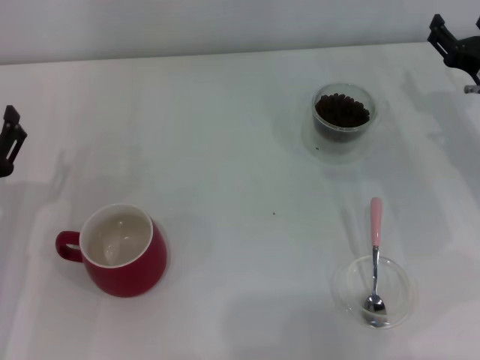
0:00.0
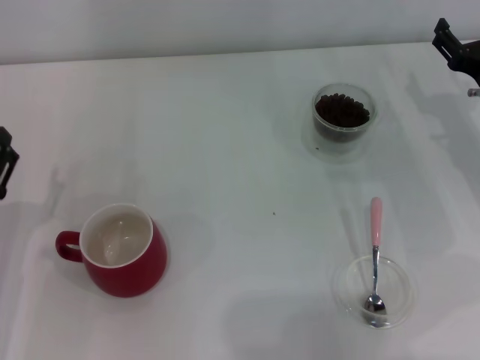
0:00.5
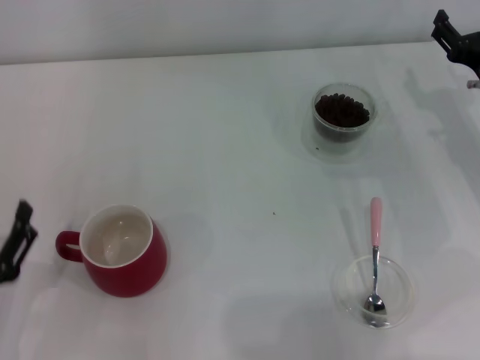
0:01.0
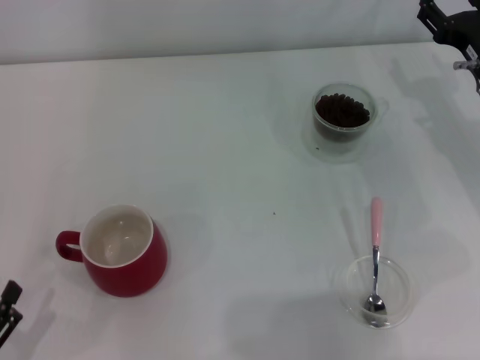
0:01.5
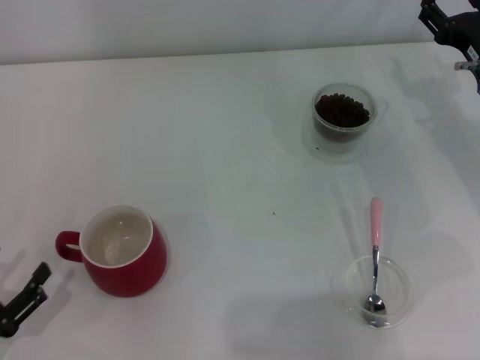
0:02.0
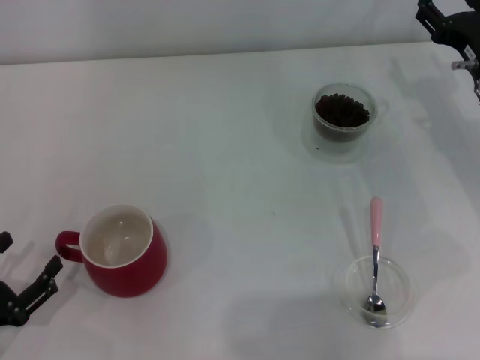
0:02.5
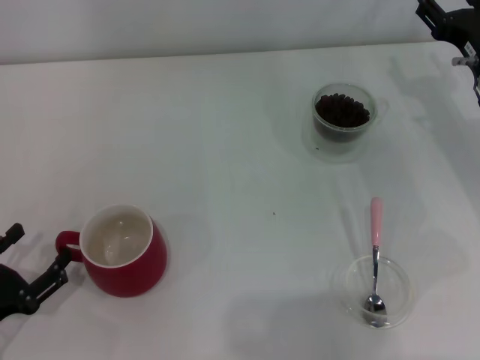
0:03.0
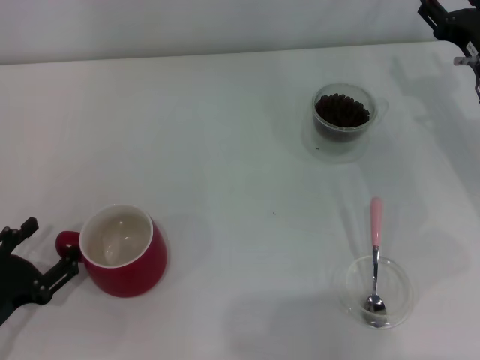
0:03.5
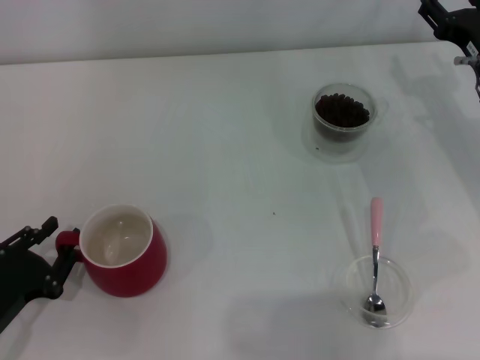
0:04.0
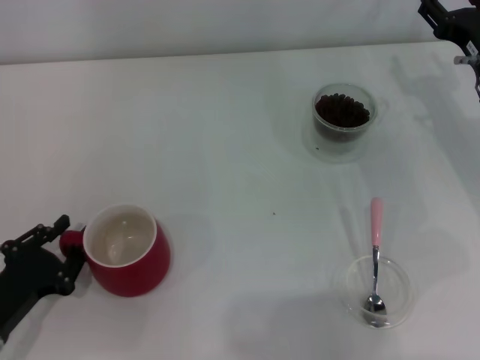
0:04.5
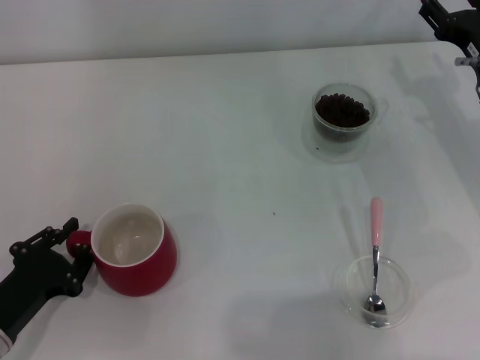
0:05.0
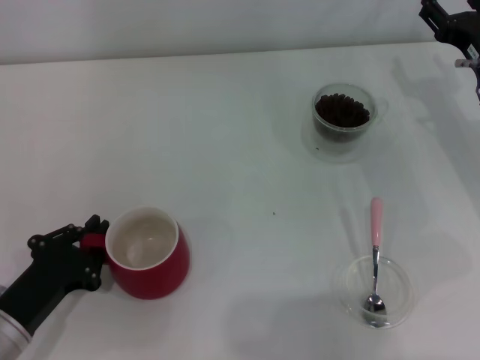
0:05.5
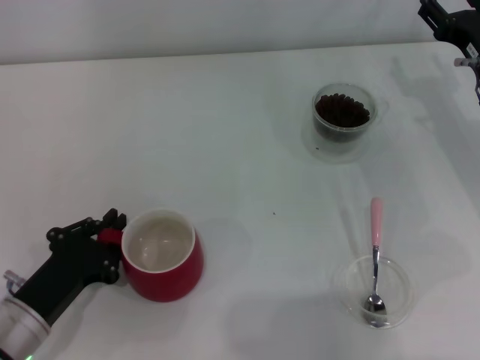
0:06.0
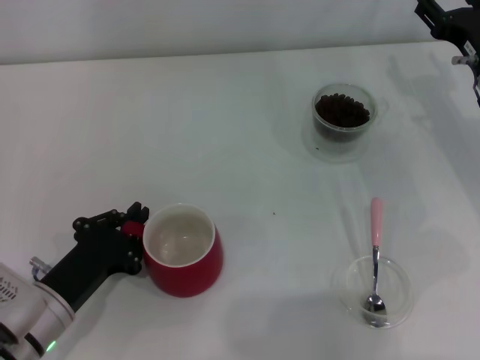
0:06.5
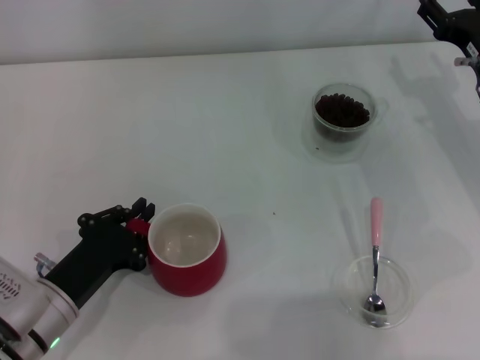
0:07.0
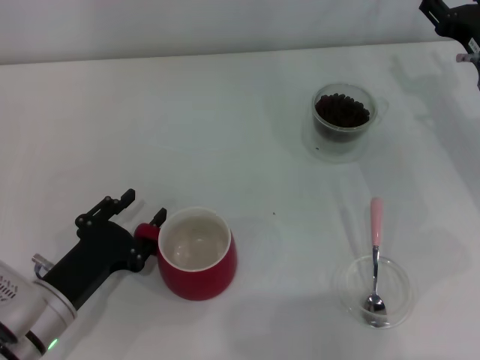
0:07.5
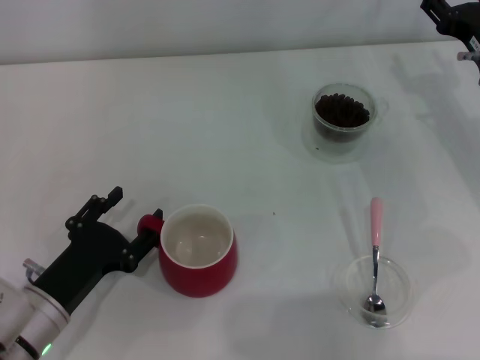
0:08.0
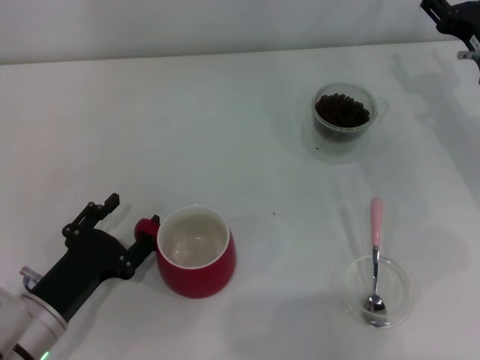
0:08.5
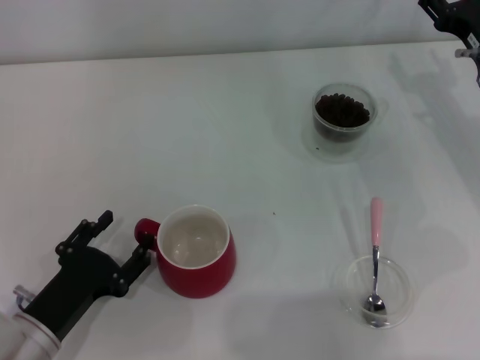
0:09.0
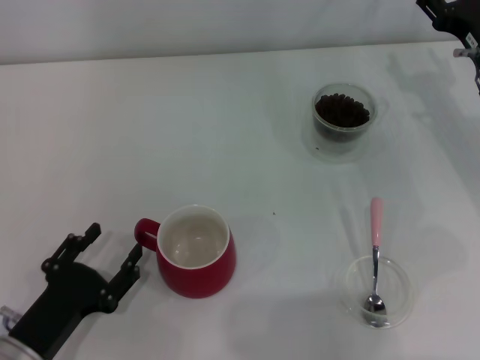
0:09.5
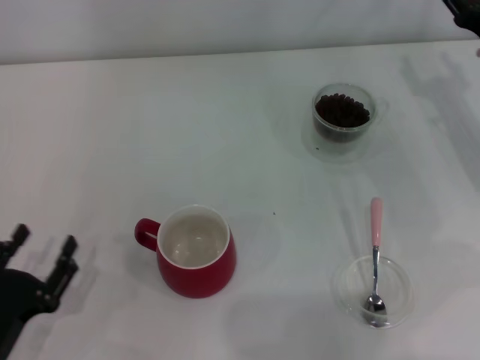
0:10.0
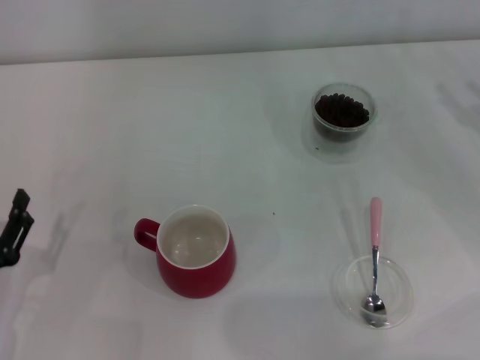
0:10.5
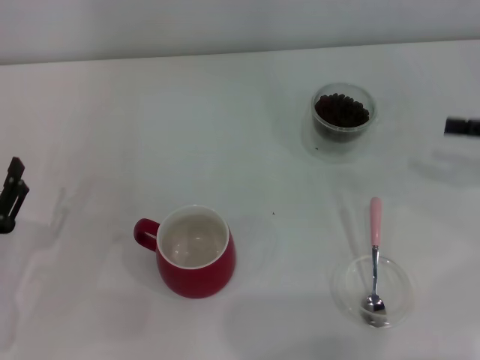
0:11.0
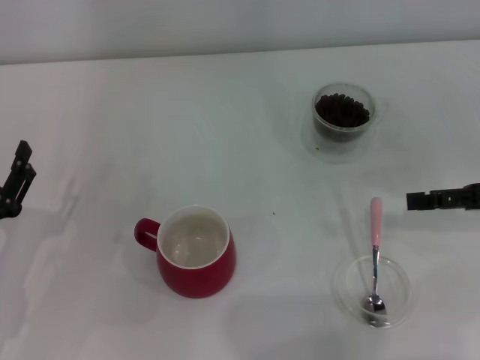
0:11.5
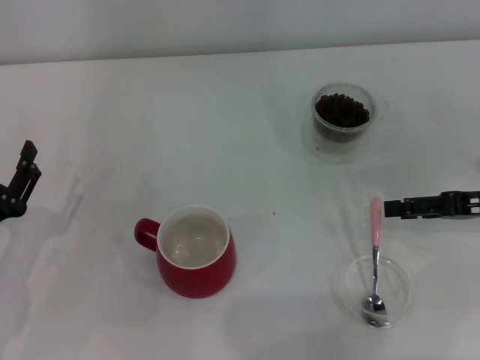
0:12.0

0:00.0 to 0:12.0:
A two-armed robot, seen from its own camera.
Task of the whole recording: Use a pink spoon to take out the coffee beans from the glass and pour them into the red cup.
Step, 0:00.0 to 0:09.5: Move the cup to the center of view with the left gripper.
0:00.0 to 0:02.0: The left gripper travels backward and to the left by approximately 15 cm.
0:02.0 to 0:04.0: The left gripper is displaced forward by approximately 5 cm, and closes up.
0:04.0 to 0:06.0: The left gripper travels to the right by about 5 cm, and closes up.
0:06.0 to 0:08.0: The left gripper opens its fingers.
0:08.0 to 0:10.0: The left gripper is displaced backward by some 5 cm.
0:10.0 to 0:12.0: The right gripper goes about 10 cm backward. Meanwhile the left gripper heads forward, covering roughly 10 cm.

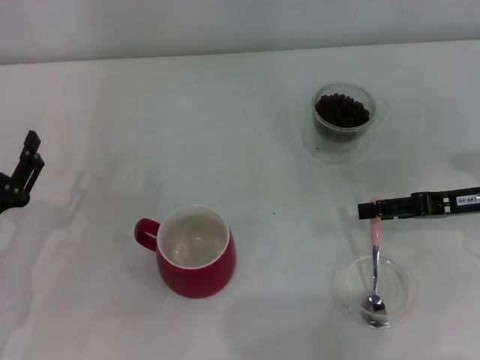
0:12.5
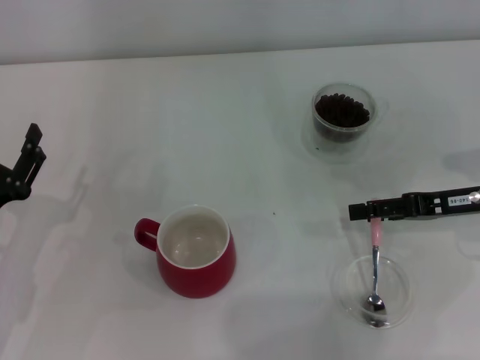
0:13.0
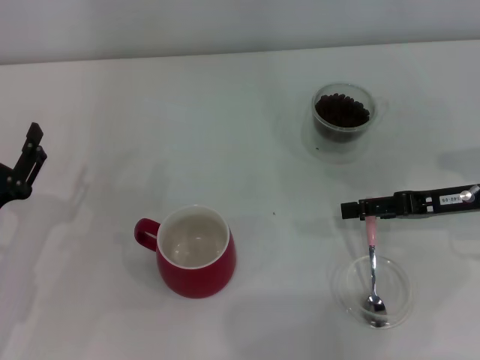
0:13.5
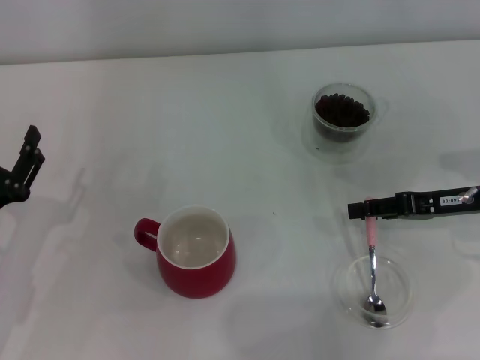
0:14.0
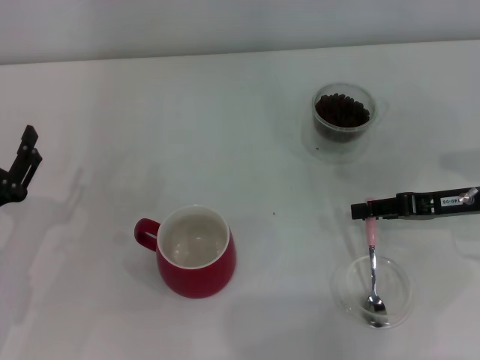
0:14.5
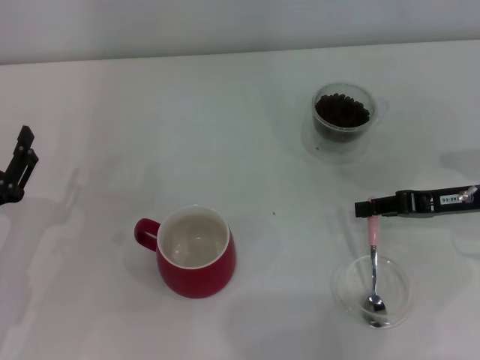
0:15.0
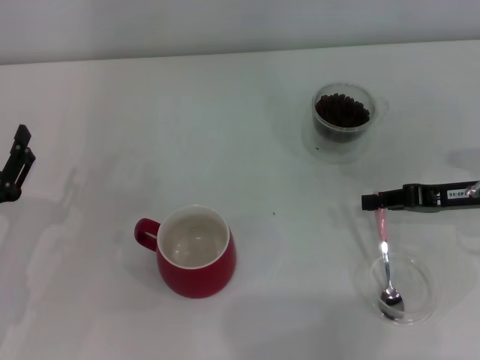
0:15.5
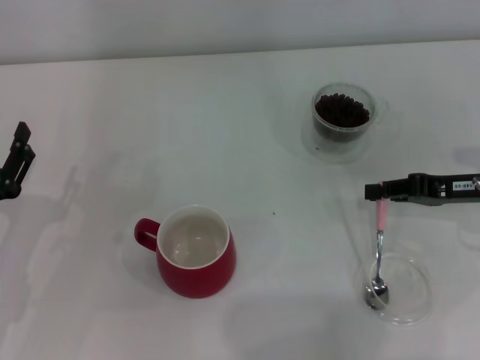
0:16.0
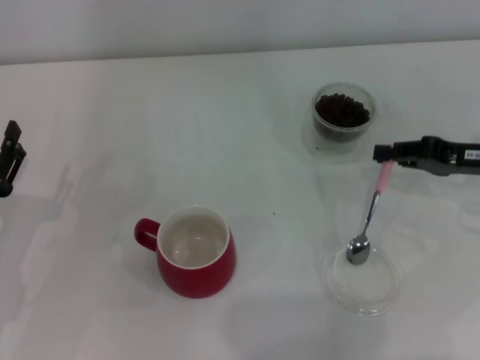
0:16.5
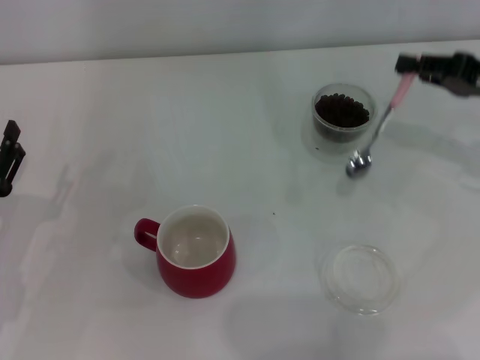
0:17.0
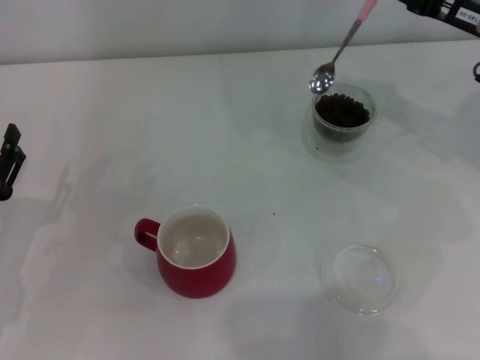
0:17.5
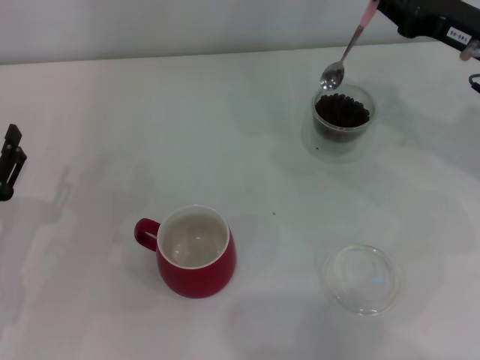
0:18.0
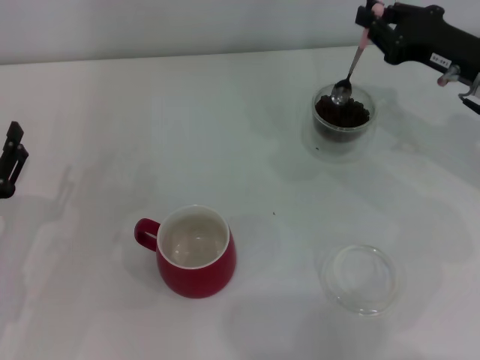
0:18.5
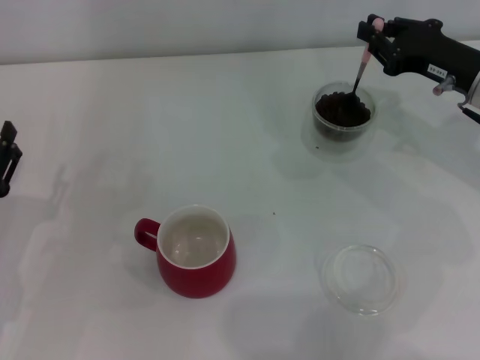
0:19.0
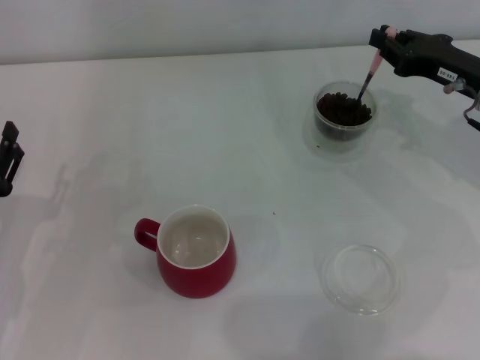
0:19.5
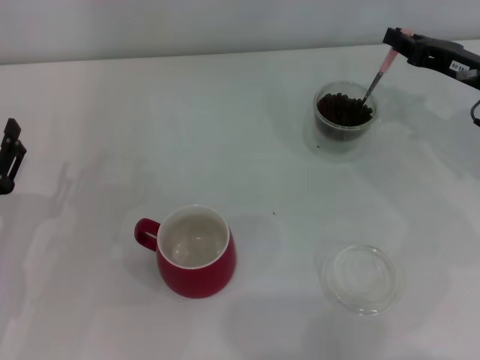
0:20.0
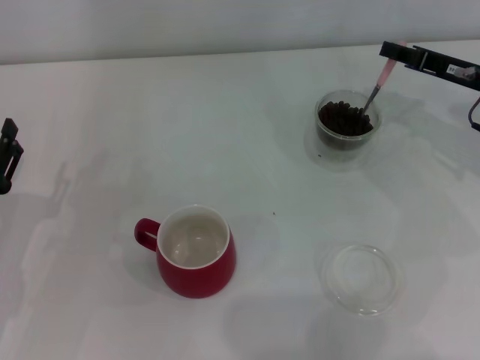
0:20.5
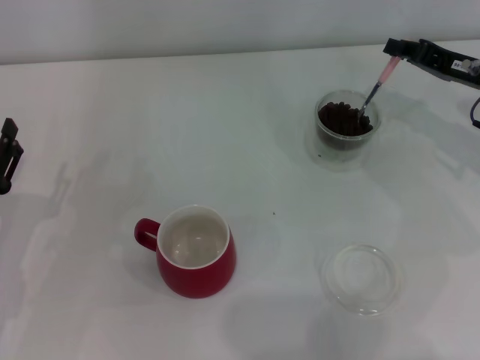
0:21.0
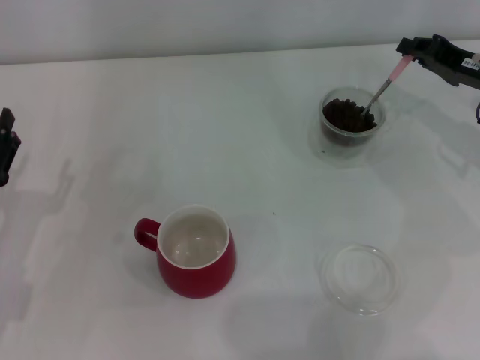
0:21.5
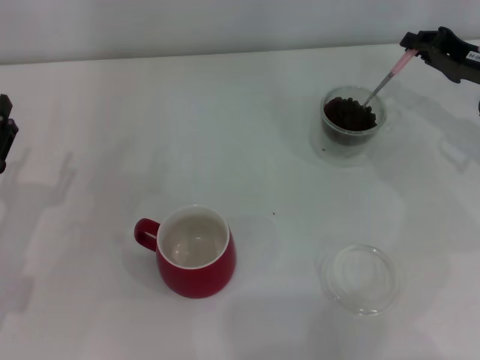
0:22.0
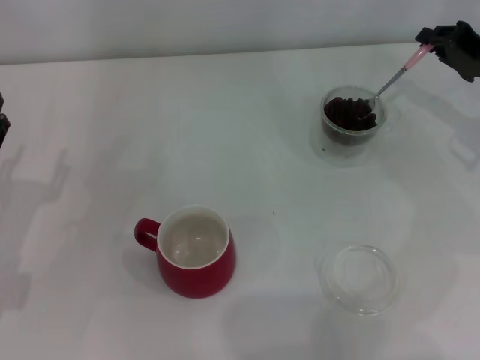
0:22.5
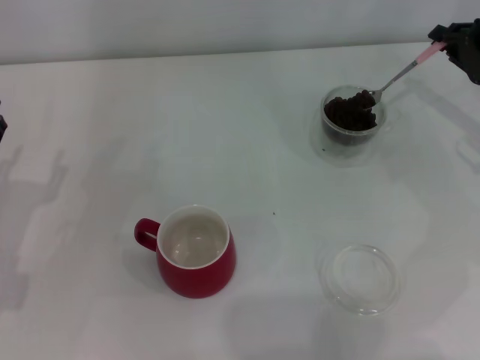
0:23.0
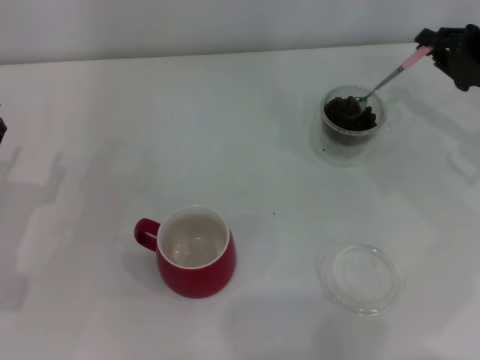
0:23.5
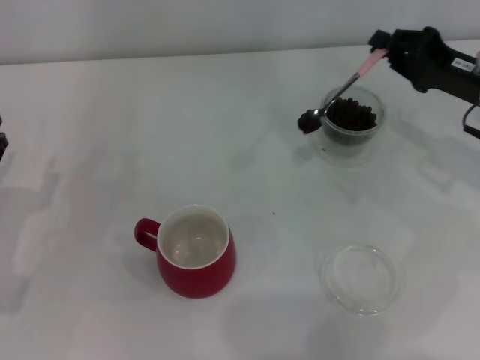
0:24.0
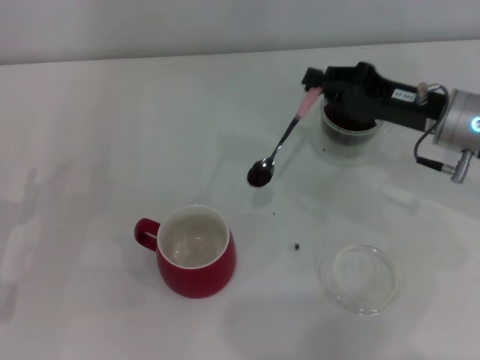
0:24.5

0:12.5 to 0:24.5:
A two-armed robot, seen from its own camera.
Task of the whole recording: Use a pink spoon to take out the coffee beans from the glass and pour them into the red cup.
Step, 0:12.5 to 0:16.5: Pick up the spoon with the right gripper.
0:12.5 to 0:14.5: The right gripper closes up.
0:14.5 to 0:16.5: The right gripper closes its fingers.
0:16.5 to 0:18.5: The right gripper is displaced forward by approximately 5 cm.
0:22.5 to 0:24.5: The right gripper goes approximately 10 cm to the left.

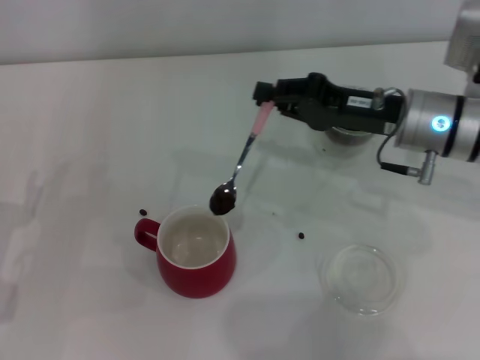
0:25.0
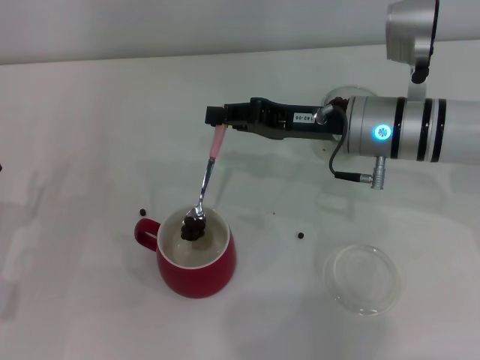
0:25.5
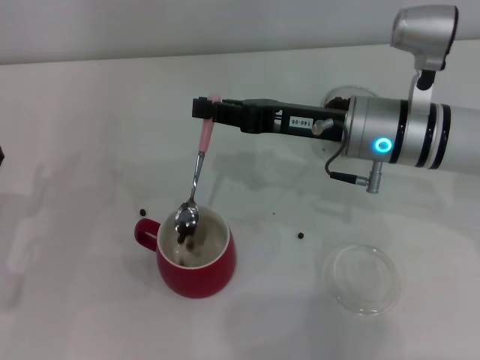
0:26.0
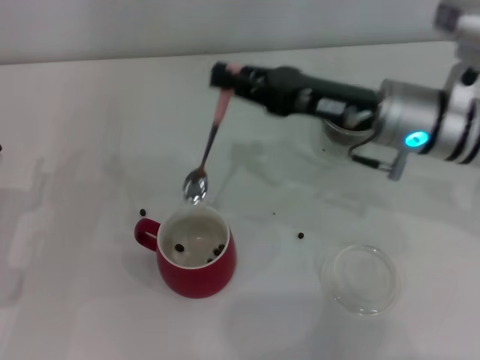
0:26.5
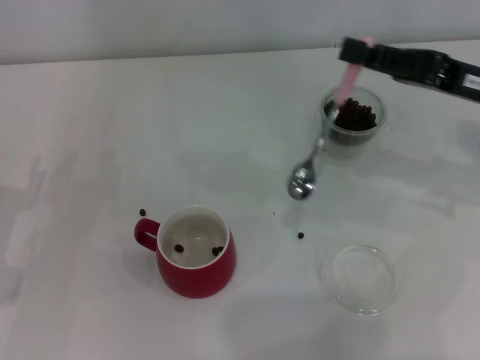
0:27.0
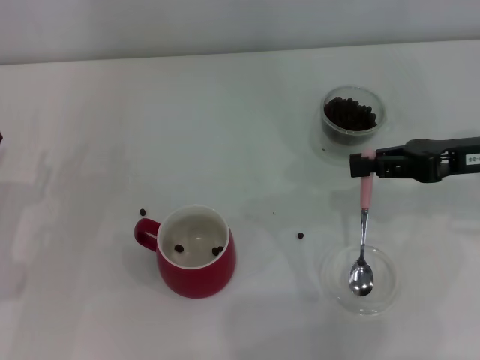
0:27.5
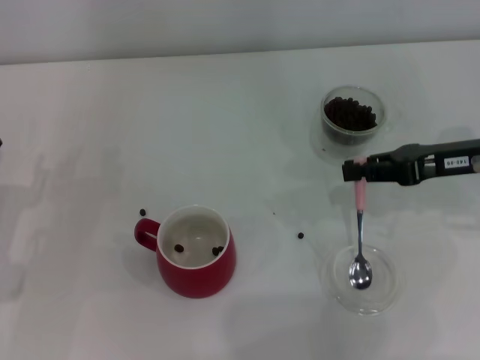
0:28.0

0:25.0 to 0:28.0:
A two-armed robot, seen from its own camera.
Task of the whole recording: Use a pink spoon to take out the coffee beans from the glass and pour them into the red cup.
0:26.5 to 0:28.0: The right gripper goes some 15 cm to the right.
